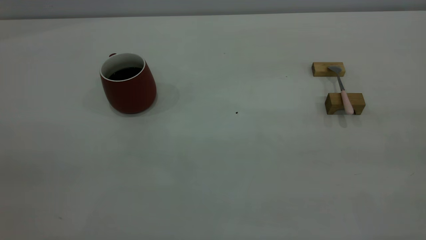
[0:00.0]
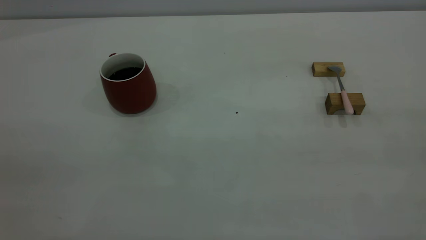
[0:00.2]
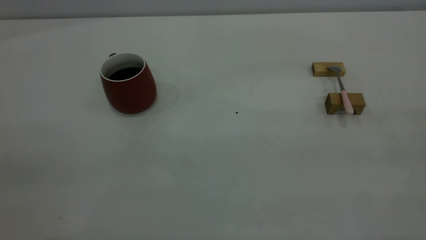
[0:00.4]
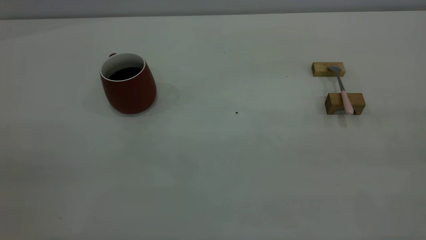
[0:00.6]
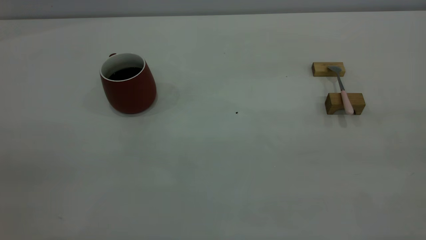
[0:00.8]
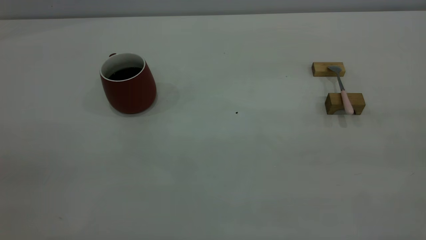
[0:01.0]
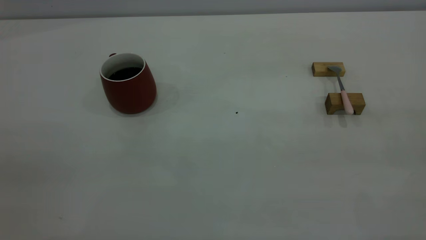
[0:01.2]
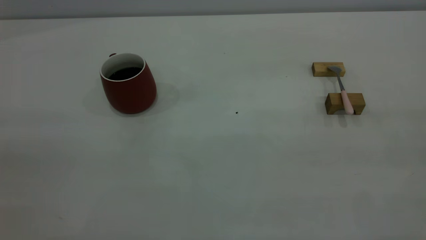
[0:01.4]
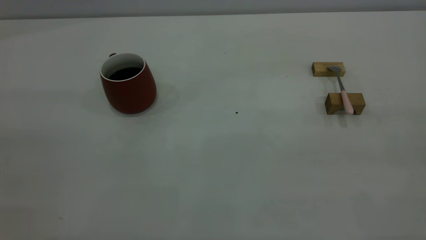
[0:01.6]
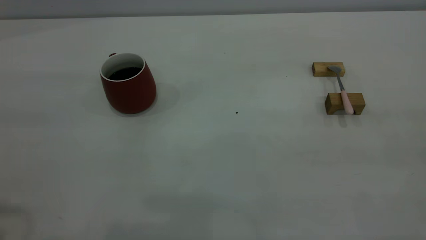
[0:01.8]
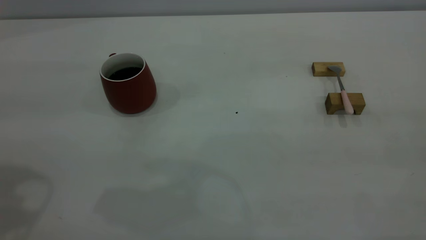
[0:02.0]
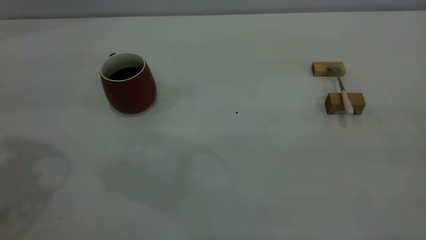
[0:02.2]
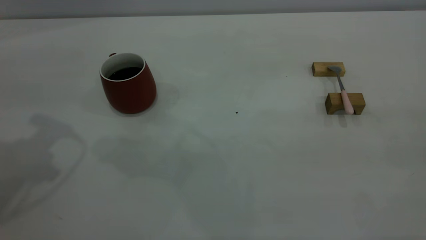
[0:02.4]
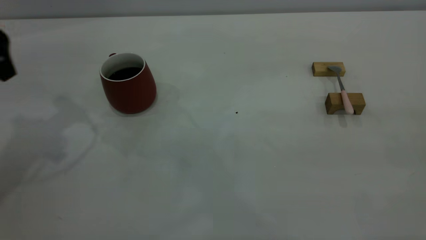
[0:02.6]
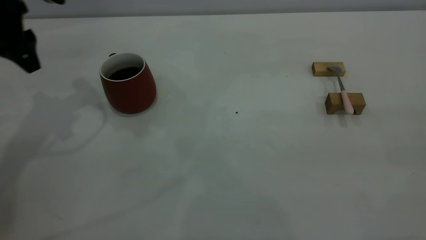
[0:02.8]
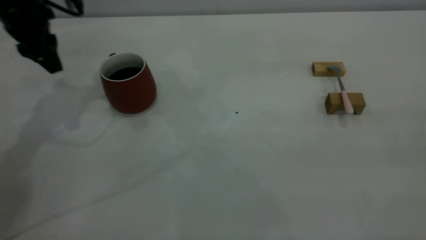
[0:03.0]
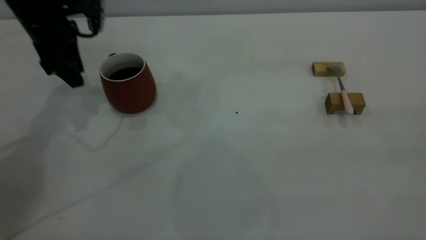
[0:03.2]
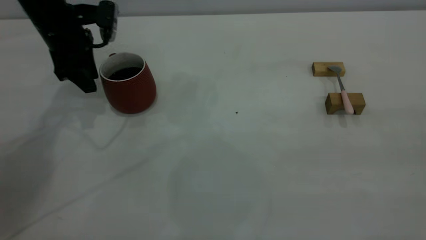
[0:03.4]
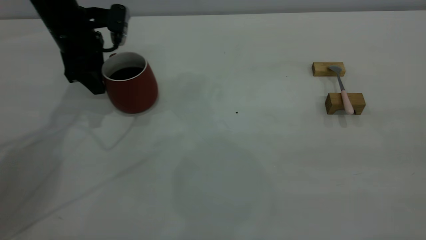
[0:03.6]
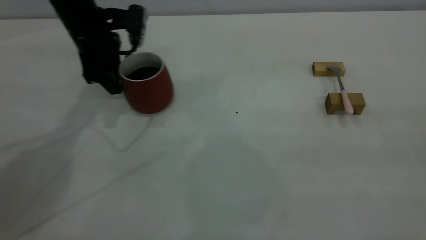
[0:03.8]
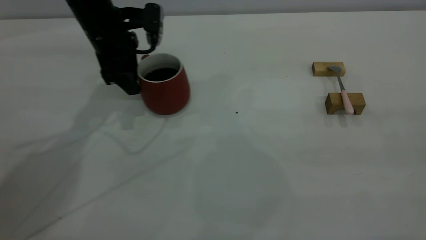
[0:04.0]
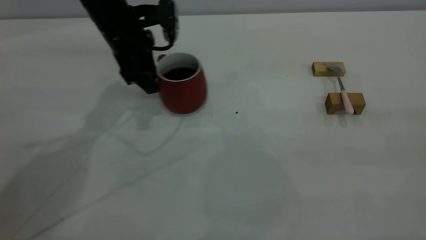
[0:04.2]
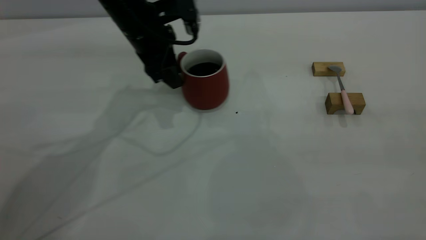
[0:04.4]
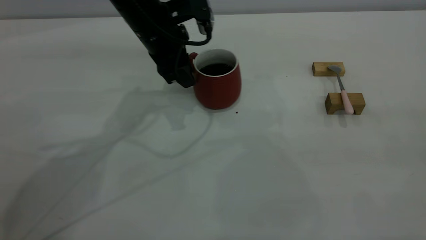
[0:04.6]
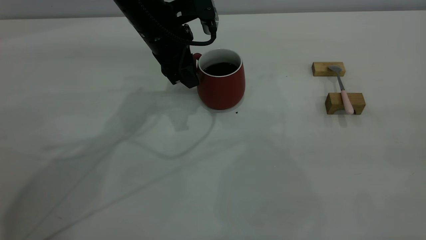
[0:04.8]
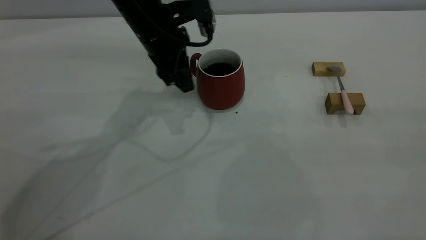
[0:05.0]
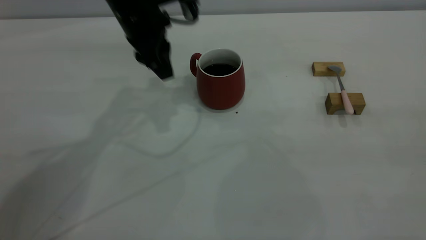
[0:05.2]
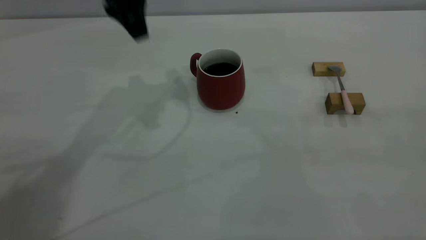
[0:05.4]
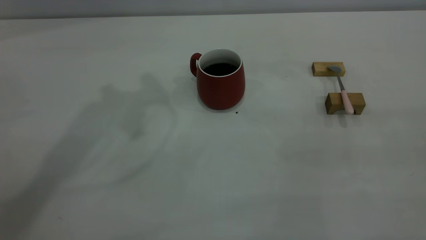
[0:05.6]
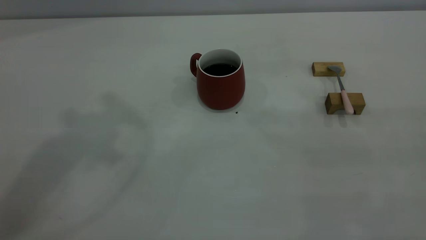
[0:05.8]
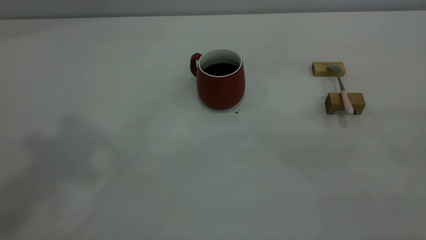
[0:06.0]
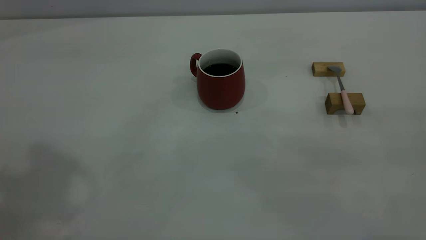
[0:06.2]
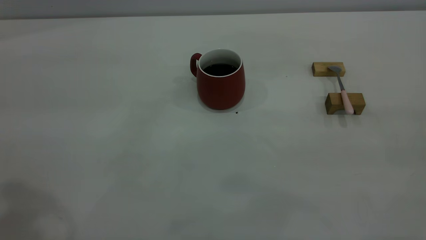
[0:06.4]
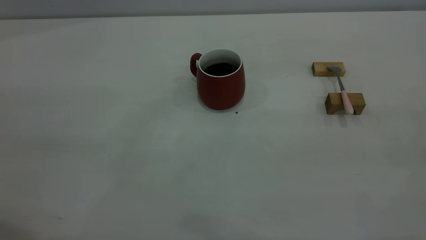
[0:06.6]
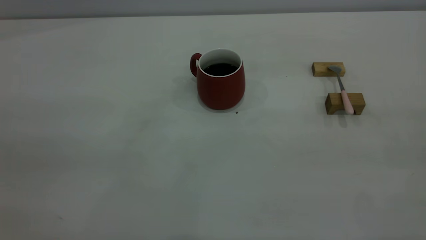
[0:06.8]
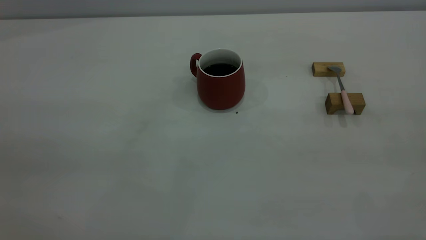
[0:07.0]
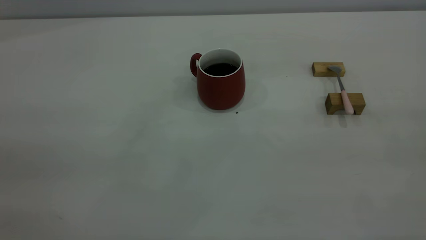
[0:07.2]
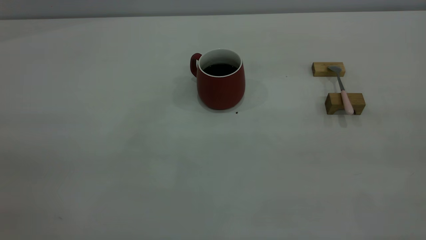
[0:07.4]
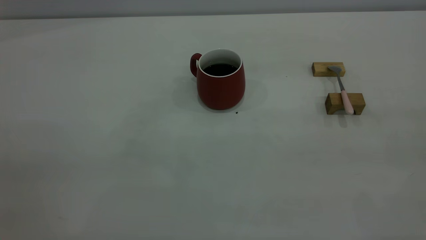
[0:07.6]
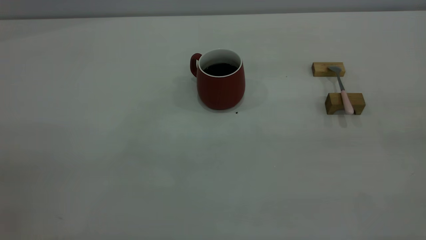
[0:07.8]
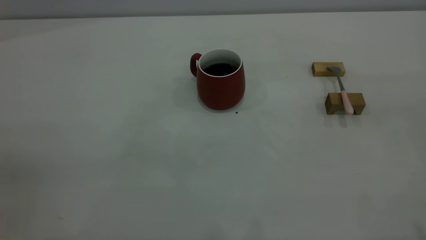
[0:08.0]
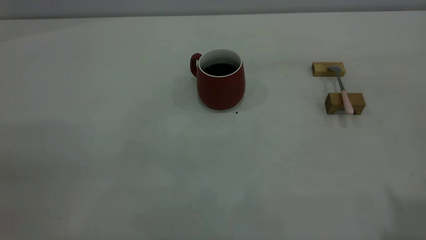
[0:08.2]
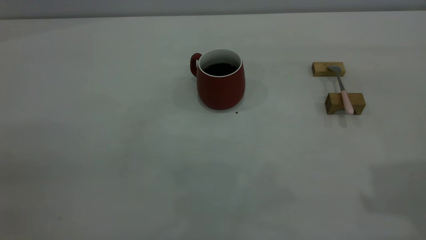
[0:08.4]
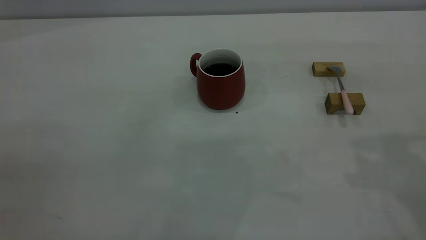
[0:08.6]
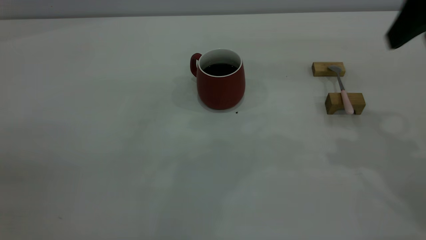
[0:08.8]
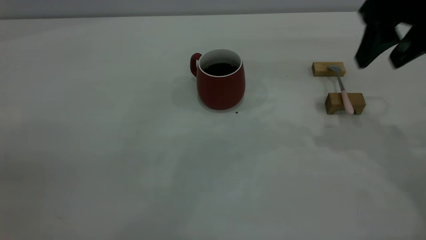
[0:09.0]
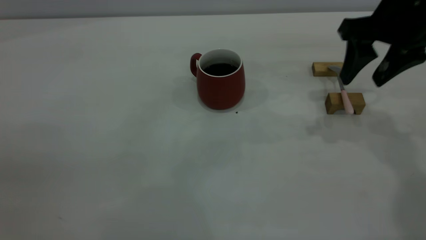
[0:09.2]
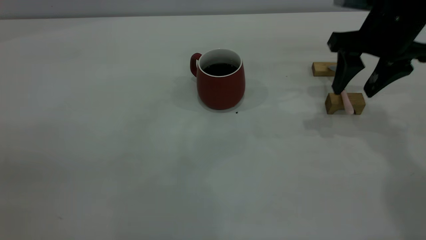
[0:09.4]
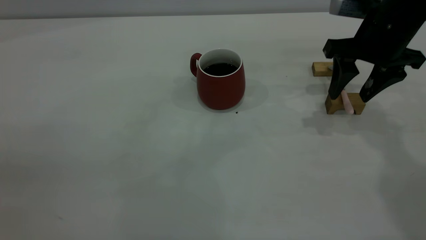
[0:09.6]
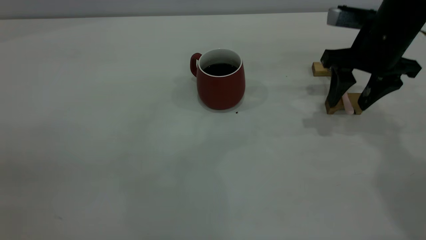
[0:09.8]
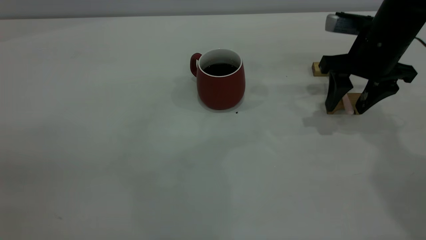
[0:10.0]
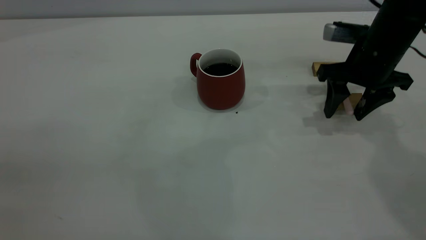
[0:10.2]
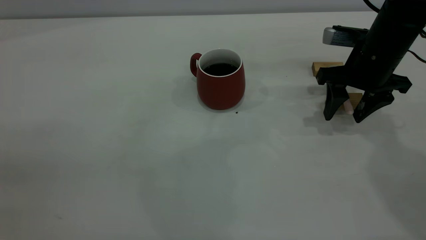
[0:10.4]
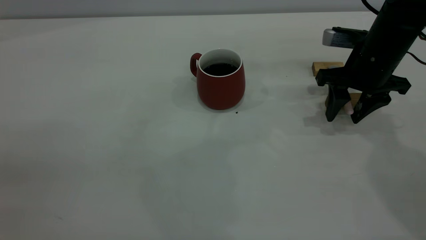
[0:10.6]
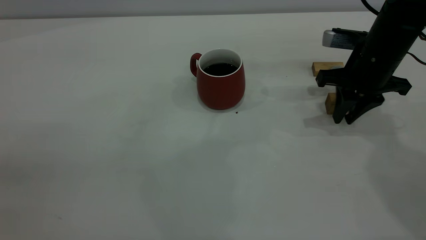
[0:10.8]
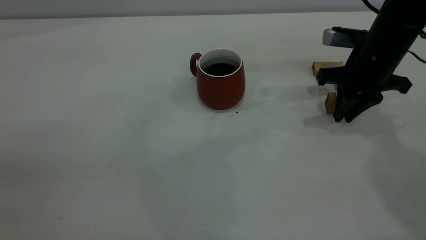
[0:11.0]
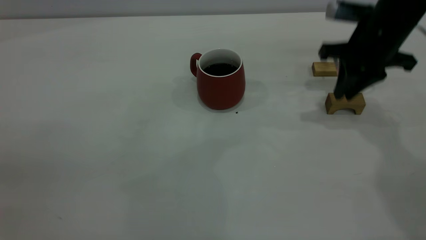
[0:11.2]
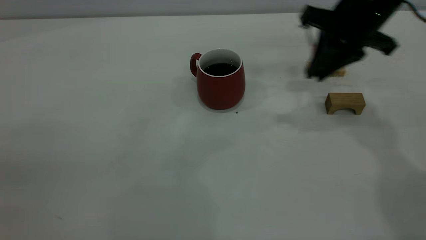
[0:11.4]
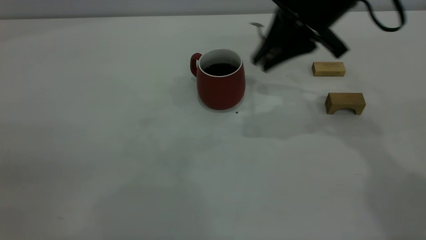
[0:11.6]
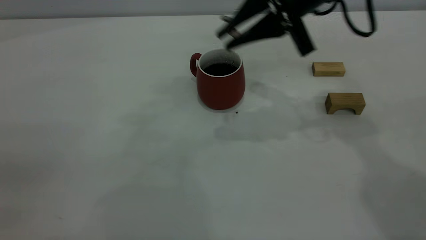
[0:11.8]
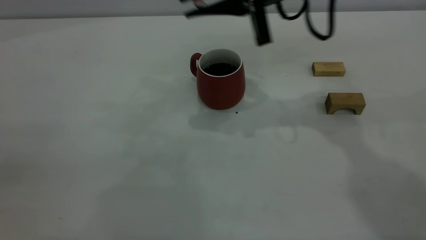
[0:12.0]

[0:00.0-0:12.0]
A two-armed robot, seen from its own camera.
Step, 0:00.0 to 0:05.0: Move the cup with coffee to the center of view.
Step, 0:05.2 to 0:11.2: Pick up the spoon.
0:01.6 to 0:03.0: The left gripper is displaced forward and downward by some 40 cm.
0:03.0 to 0:04.4: The left gripper heads to the right, covering approximately 15 cm, and closes.
0:04.4 to 0:06.0: The left gripper travels upward and backward by some 40 cm.
0:07.6 to 0:09.0: The right gripper goes about 35 cm forward, and opens up.
0:09.0 to 0:10.4: The right gripper heads downward, covering about 10 cm.
0:10.4 to 0:12.0: The right gripper heads to the left and upward, covering some 20 cm, and closes.

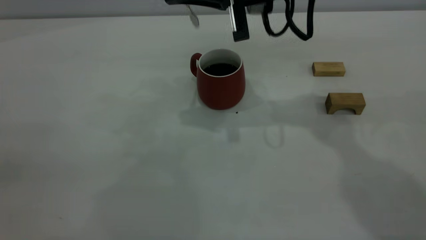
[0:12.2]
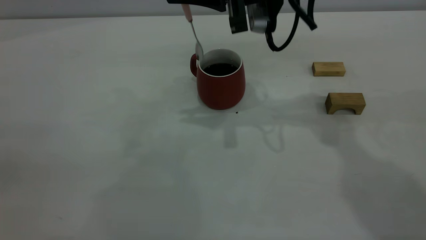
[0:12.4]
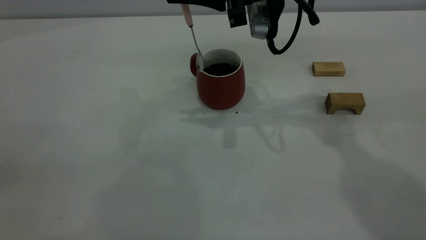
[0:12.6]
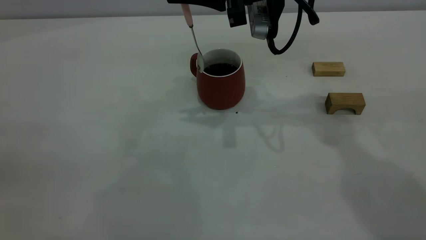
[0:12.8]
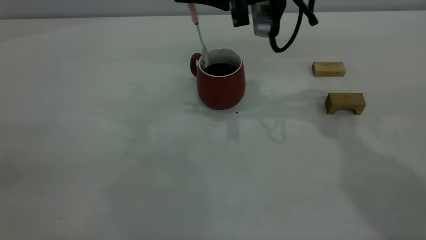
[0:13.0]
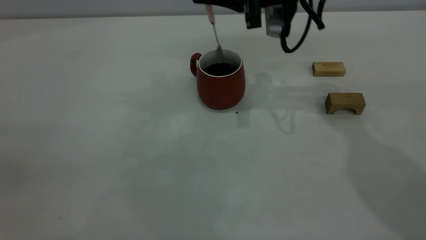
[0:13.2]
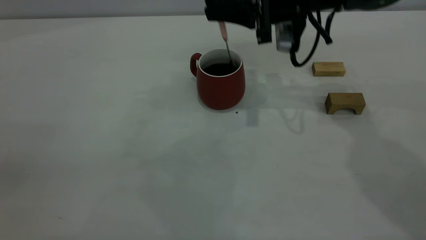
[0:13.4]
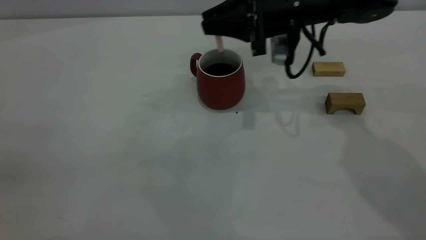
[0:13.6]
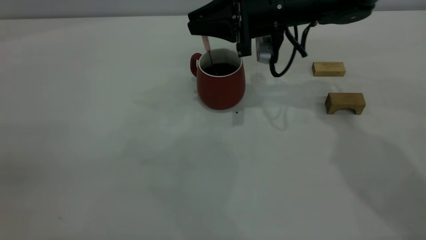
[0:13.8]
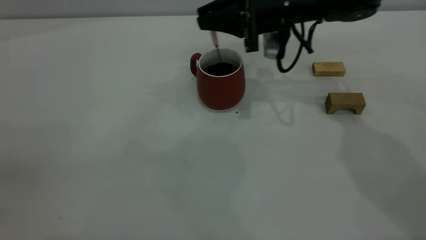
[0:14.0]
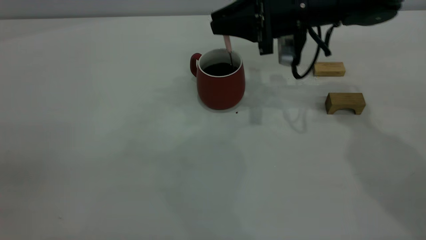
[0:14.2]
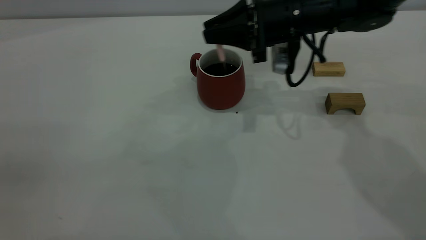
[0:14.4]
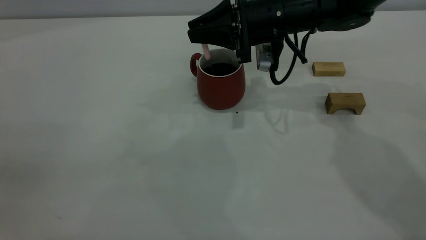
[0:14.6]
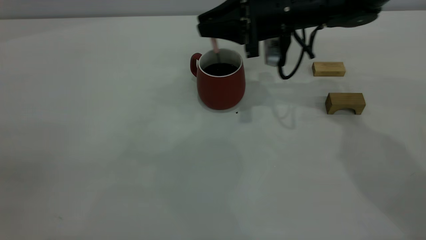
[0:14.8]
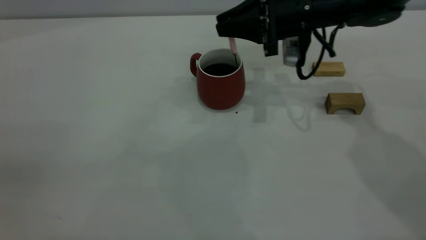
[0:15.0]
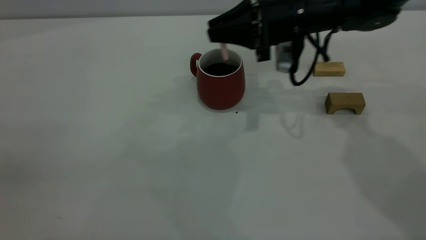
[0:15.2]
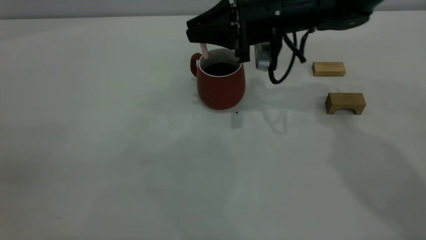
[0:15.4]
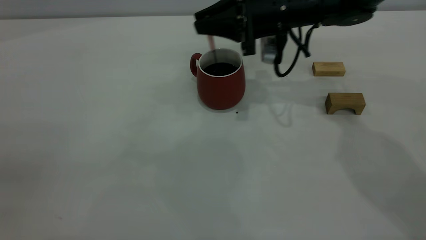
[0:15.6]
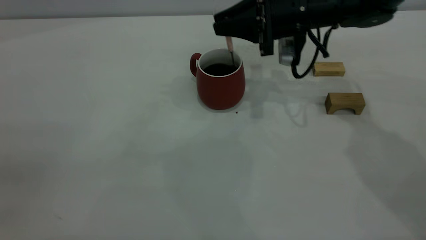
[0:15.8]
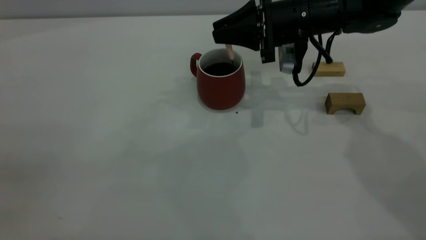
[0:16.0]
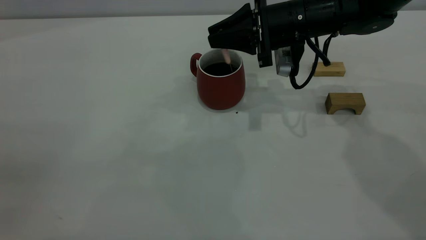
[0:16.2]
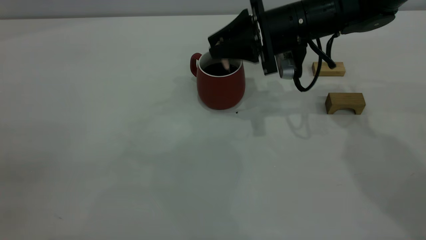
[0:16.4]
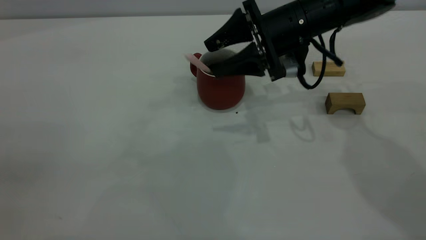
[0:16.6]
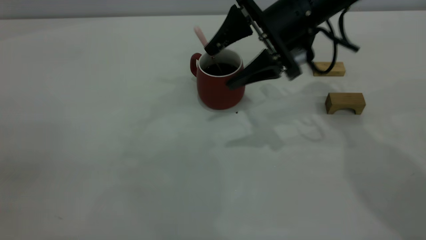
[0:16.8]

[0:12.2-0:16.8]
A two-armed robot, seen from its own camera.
Step, 0:12.2 to 0:16.4: Stir the coffee in the cup.
0:12.2 to 0:13.8: The right gripper heads downward and forward, covering some 10 cm.
0:13.8 to 0:15.2: The grippers stay close to where they were, moving slightly.
0:15.2 to 0:16.8: The right gripper opens up.
